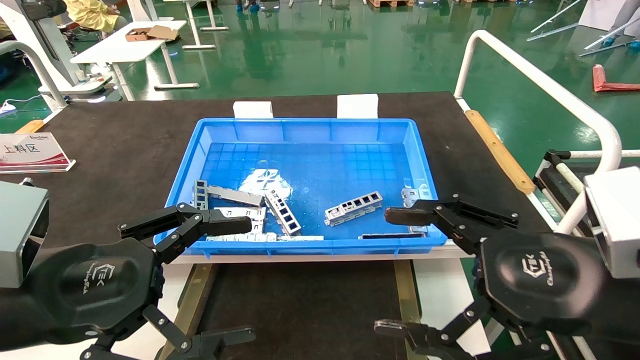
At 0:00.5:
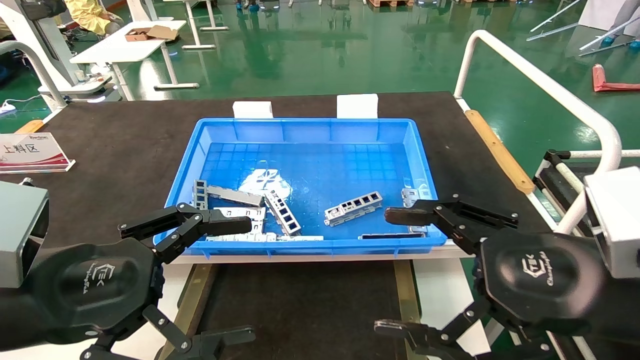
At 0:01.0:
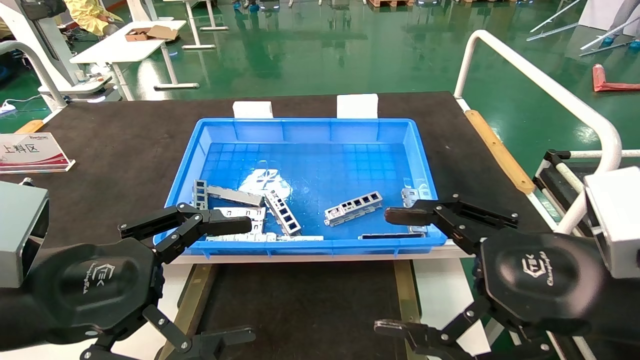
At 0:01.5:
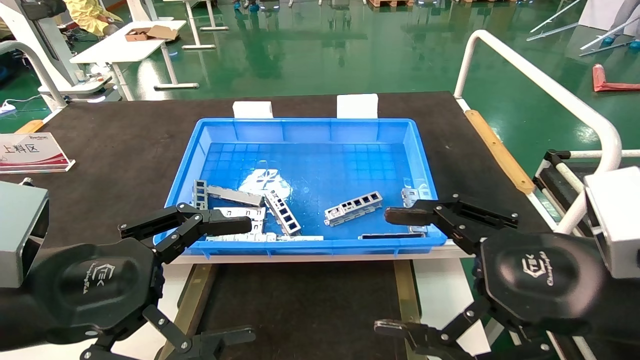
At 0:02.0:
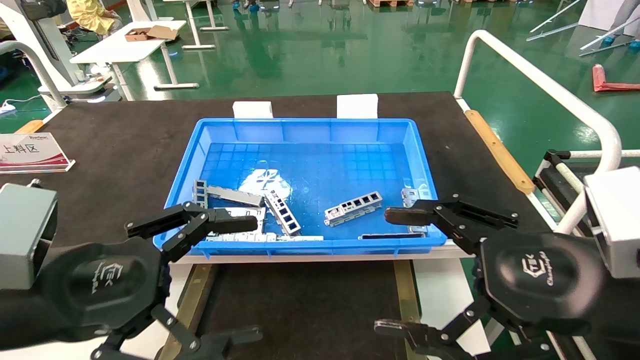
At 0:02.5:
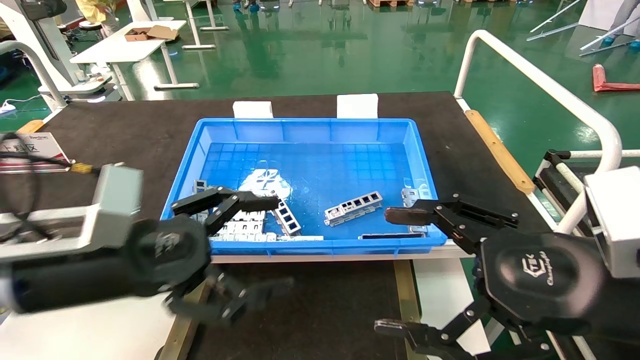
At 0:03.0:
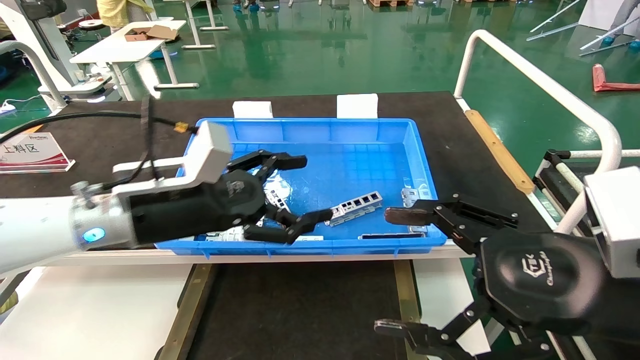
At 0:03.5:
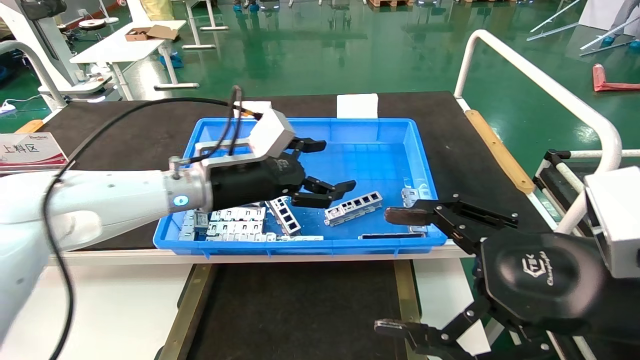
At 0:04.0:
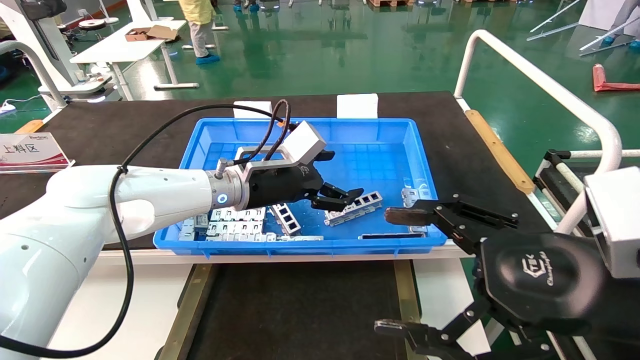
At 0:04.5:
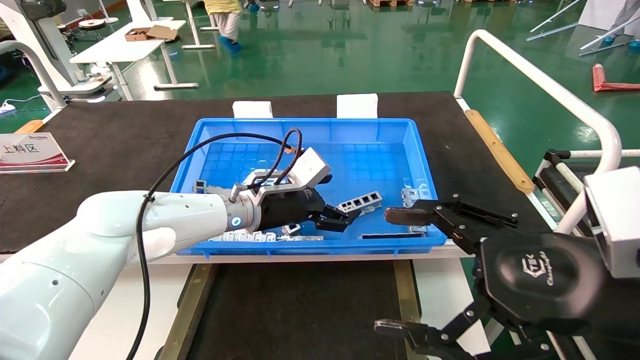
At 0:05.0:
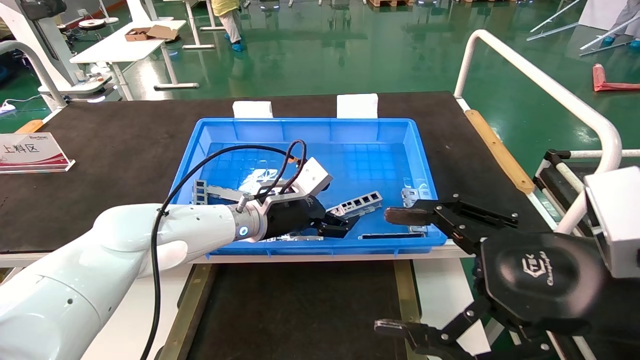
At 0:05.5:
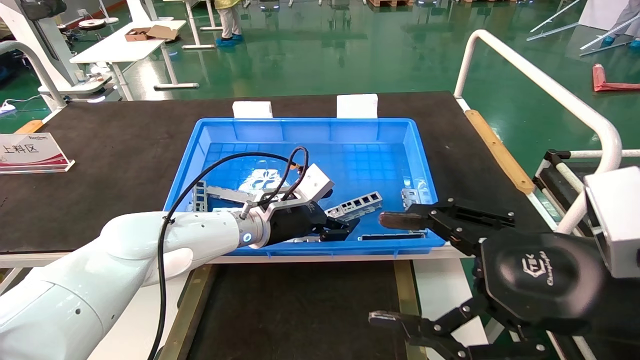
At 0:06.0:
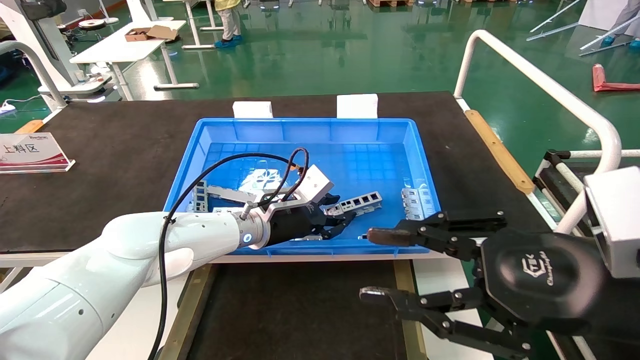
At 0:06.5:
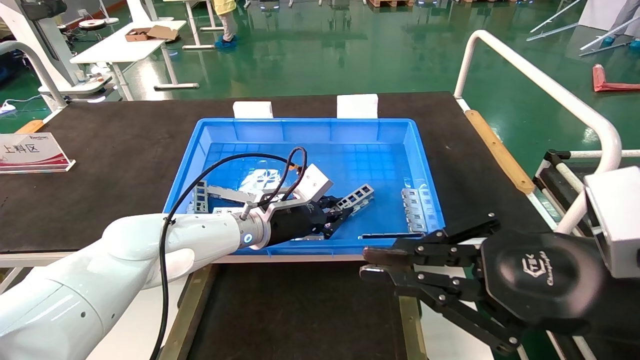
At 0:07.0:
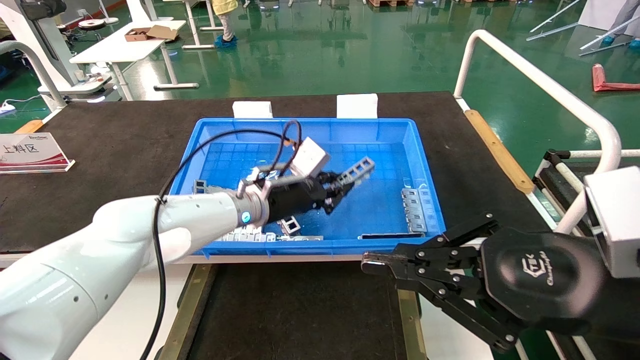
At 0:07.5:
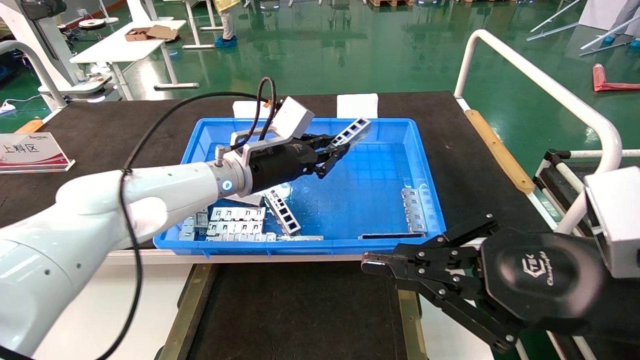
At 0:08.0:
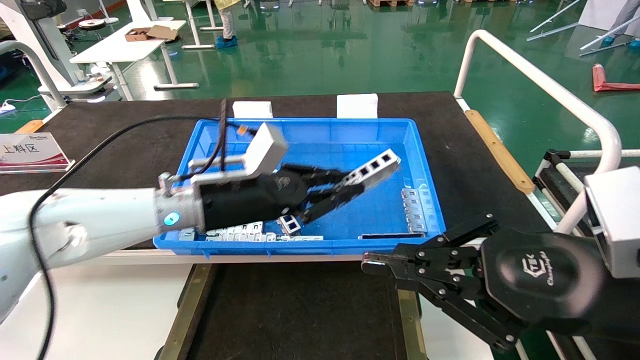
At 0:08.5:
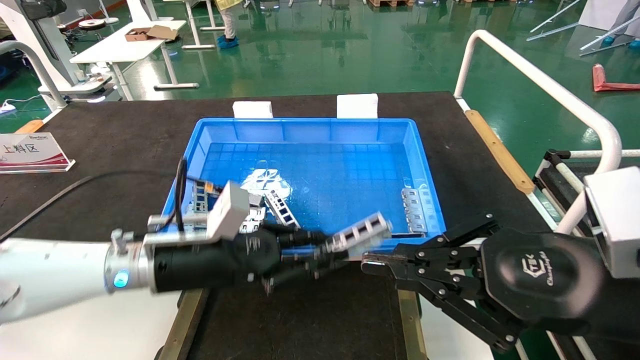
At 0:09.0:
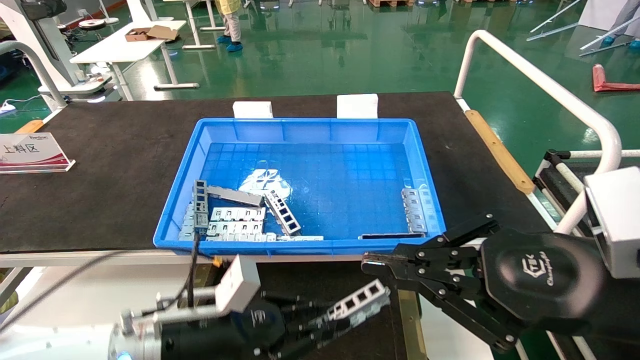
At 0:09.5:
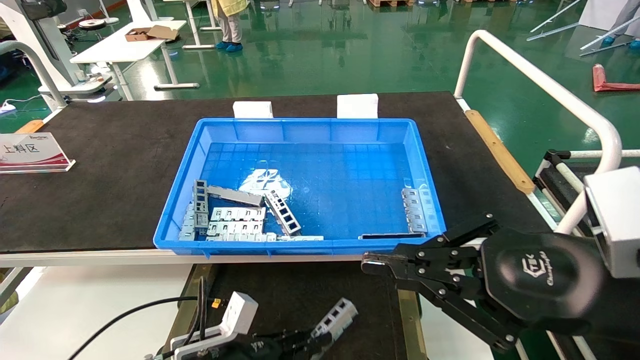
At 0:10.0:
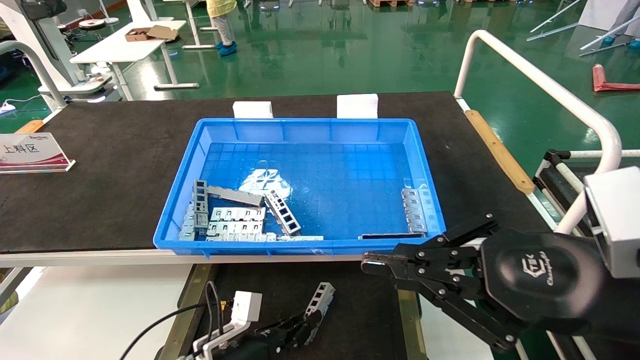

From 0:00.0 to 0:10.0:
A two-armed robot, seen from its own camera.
Task of the whole recording: Grasp the part with one hand and place it on the black container.
Step, from 0:02.5 to 0:07.0: Pick up the front USB bracket from the feeding area.
From 0:00.0 to 0:02.0: Both grippers stay about where they are.
From 0:02.0 to 0:04.0: The left gripper travels forward and to the right by roughly 30 cm.
From 0:04.0 to 0:06.0: The left gripper heads downward, covering roughly 5 cm, and closes up, while the right gripper closes its fingers.
From 0:06.0 to 0:08.0: The left gripper moves backward, upward and to the left, about 10 cm, and closes. The right gripper closes up.
From 0:08.0 to 0:10.0: The left gripper heads downward, covering some 25 cm.

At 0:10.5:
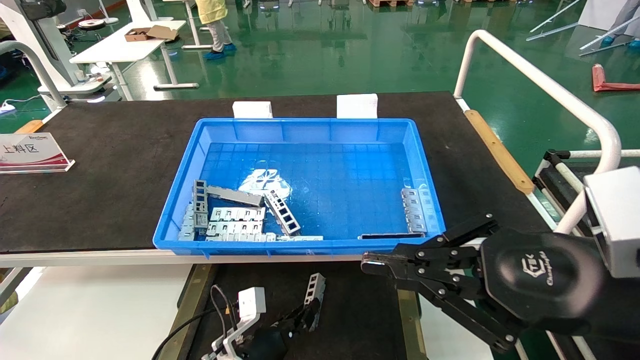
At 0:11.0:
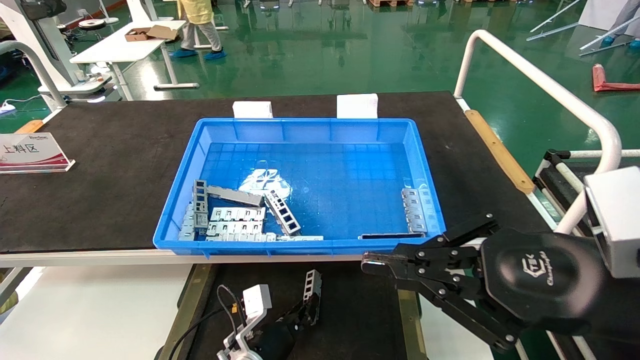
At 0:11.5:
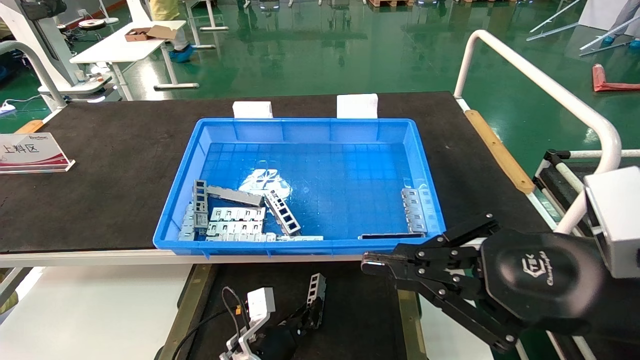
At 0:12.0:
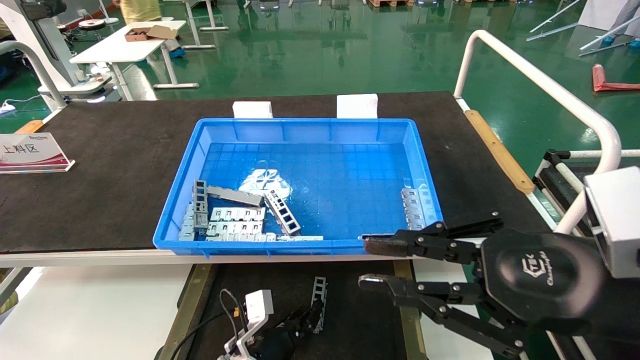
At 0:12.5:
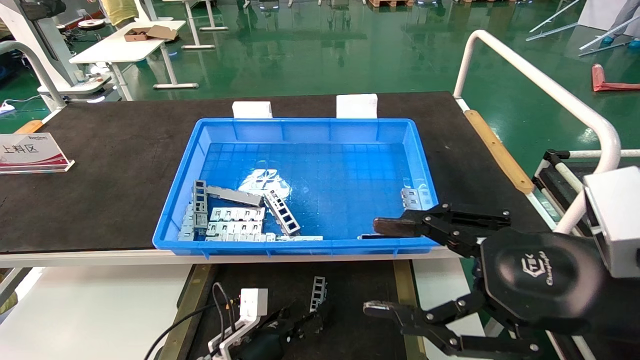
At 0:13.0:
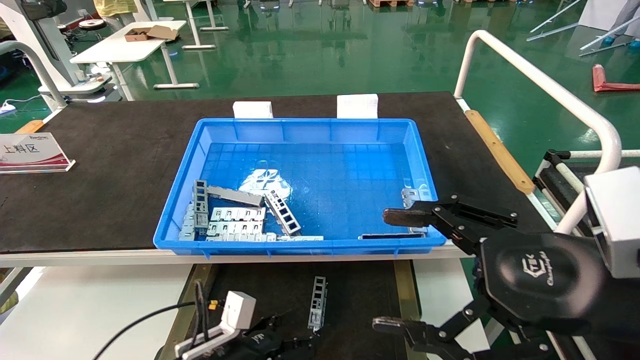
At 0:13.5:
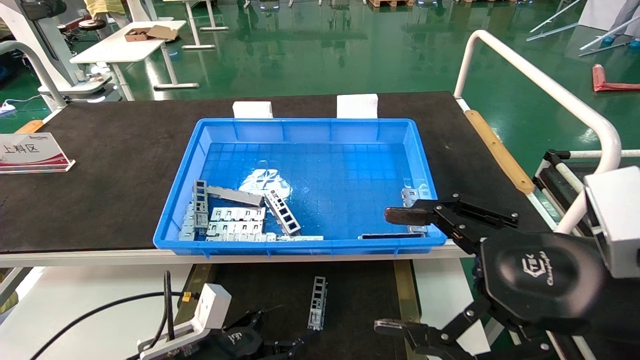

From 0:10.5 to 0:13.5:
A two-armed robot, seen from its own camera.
Task of the whole recording: Grasp the part with one hand and place it on the black container.
From 0:10.5 to 0:12.0: The grippers stay close to where they were, moving slightly.
From 0:12.0 to 0:13.5: The left gripper heads upward, backward and to the left, covering about 15 cm, and opens its fingers. The right gripper opens.
